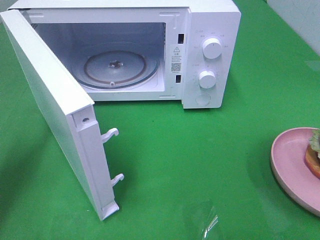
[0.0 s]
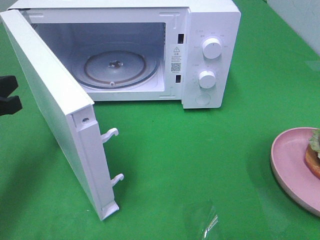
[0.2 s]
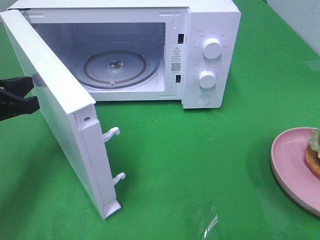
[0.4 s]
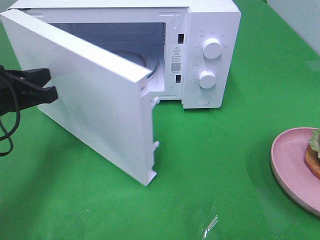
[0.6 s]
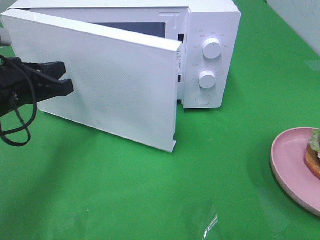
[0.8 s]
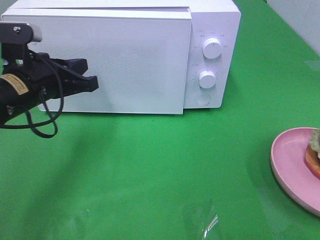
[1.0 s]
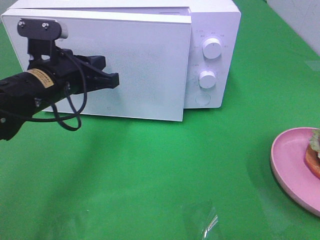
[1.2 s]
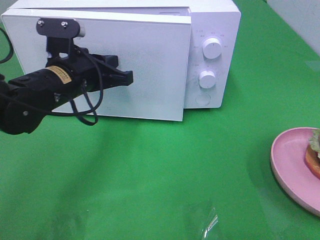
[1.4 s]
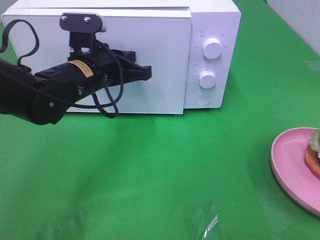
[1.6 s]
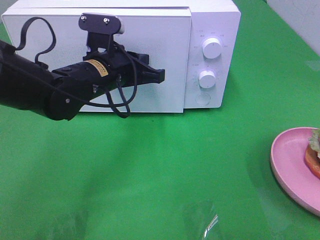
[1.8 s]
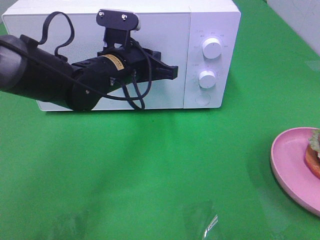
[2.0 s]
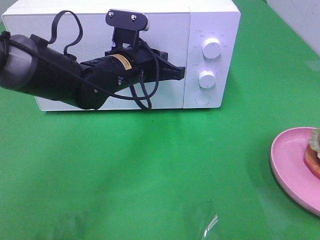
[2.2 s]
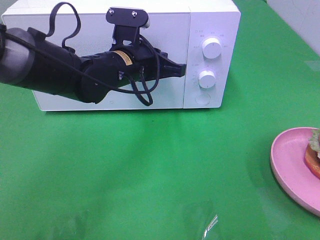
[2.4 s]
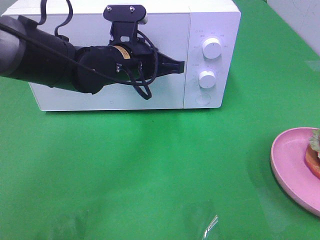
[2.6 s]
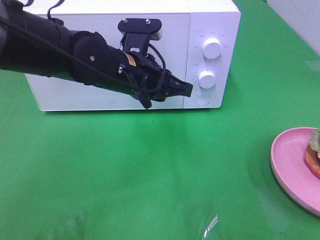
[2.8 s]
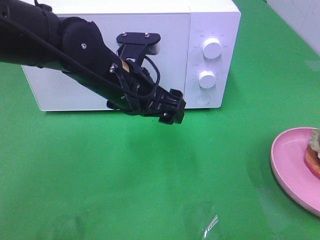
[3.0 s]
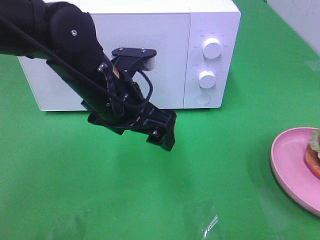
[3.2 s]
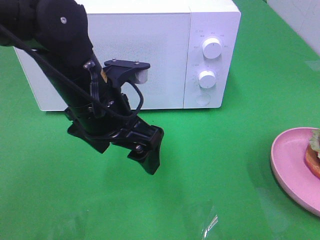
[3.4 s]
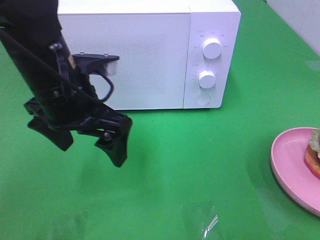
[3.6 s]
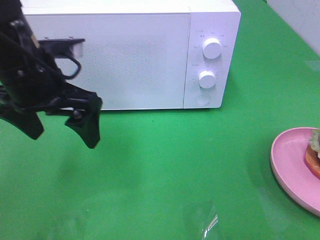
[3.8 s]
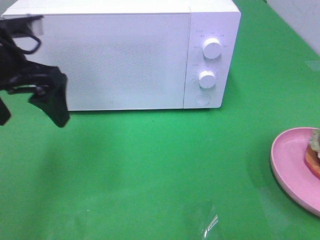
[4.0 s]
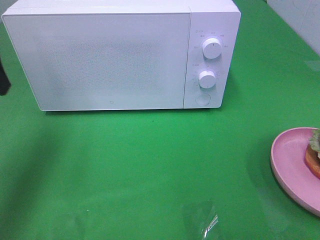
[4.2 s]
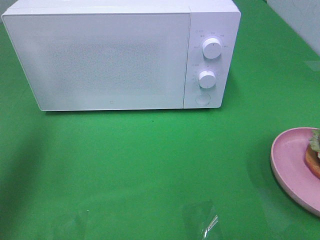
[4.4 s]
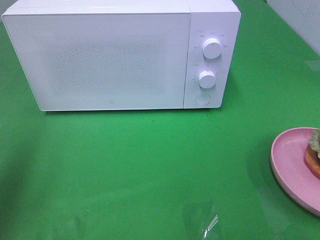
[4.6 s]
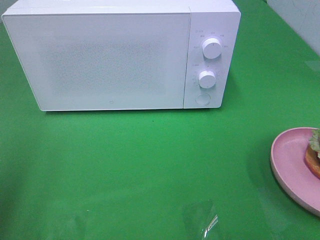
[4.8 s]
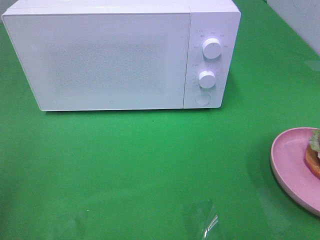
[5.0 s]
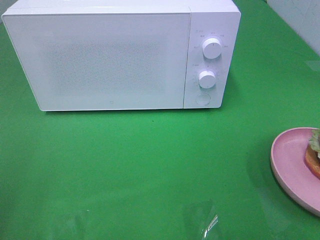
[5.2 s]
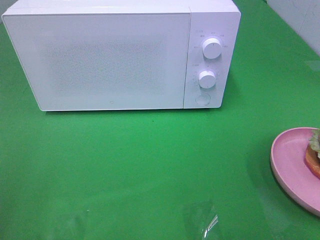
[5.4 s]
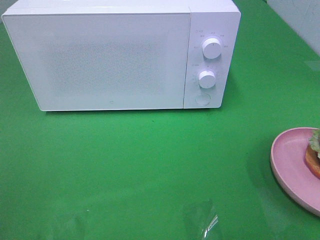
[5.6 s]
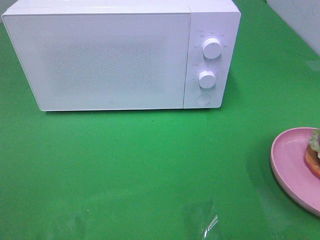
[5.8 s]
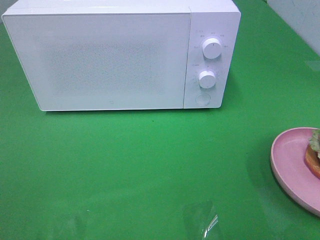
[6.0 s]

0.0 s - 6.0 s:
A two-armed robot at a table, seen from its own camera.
Task of the whole recording: Heat the burger.
Step, 0.0 s - 2.8 s: Left hand: close the microwave door.
0.0 s - 1.6 s: The left gripper shifts approximately 20 cm to the right and forward.
1.6 s - 3.0 s: The left gripper moves to the right, about 5 cm, and opens up.
3.0 s - 4.4 s: The left gripper heads to the left and upward, covering some 30 cm.
4.4 s - 6.0 s: The left gripper shifts approximately 25 cm backward.

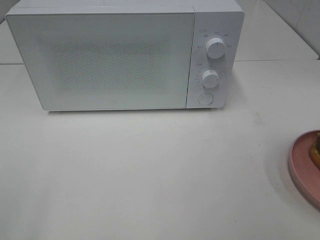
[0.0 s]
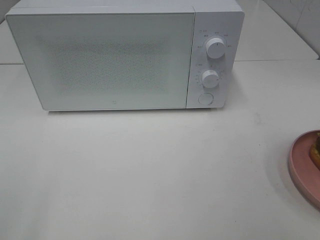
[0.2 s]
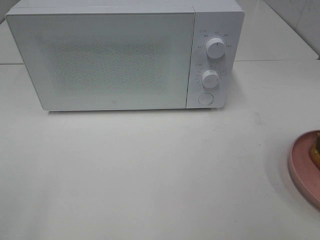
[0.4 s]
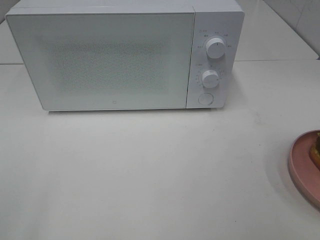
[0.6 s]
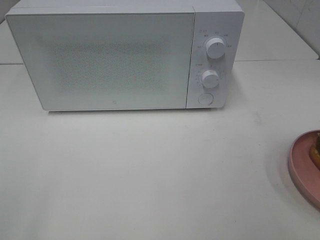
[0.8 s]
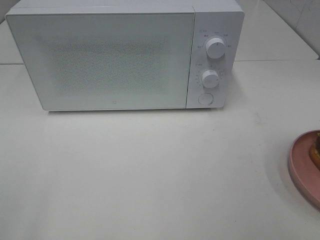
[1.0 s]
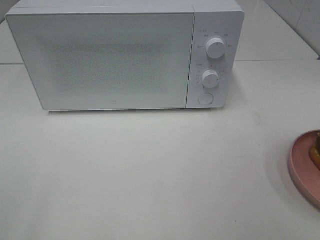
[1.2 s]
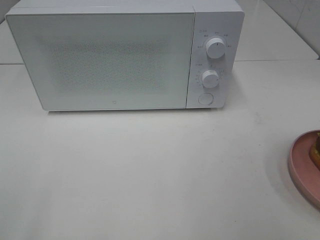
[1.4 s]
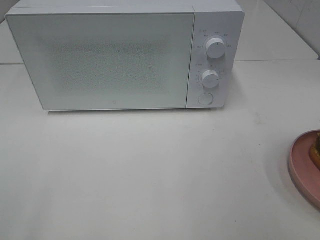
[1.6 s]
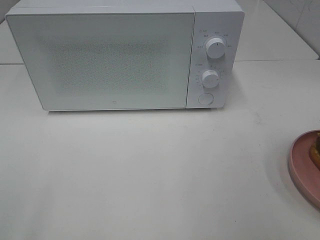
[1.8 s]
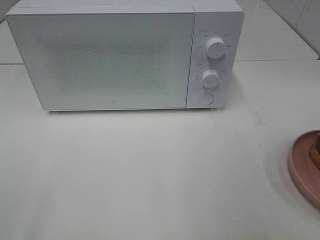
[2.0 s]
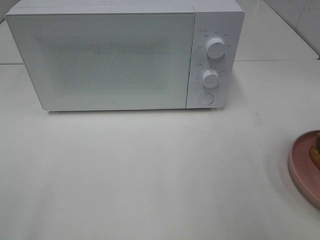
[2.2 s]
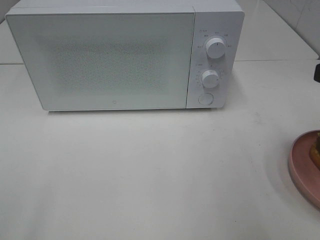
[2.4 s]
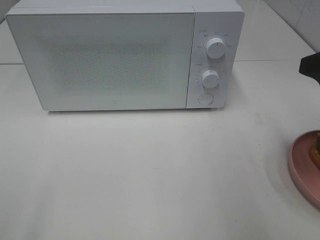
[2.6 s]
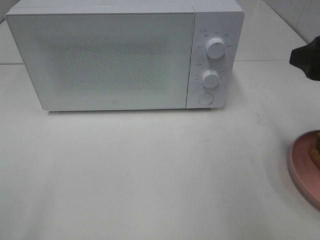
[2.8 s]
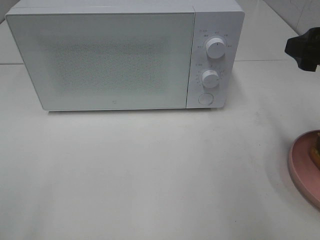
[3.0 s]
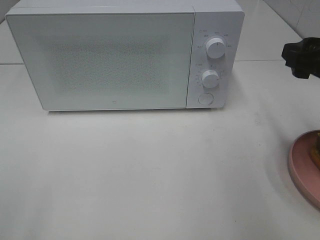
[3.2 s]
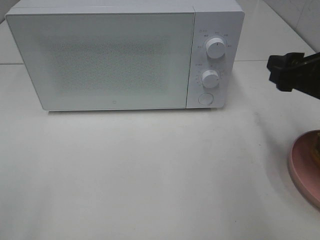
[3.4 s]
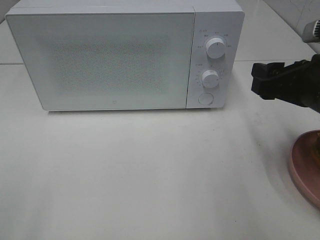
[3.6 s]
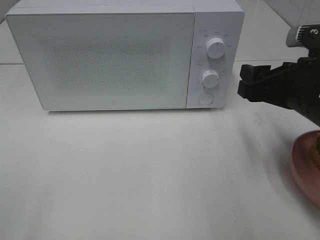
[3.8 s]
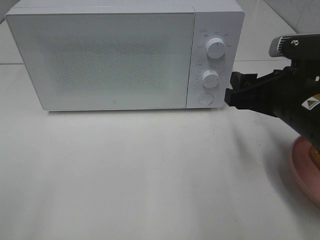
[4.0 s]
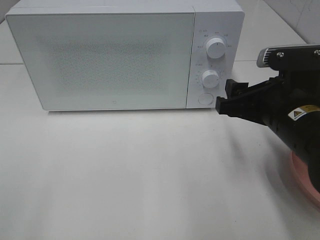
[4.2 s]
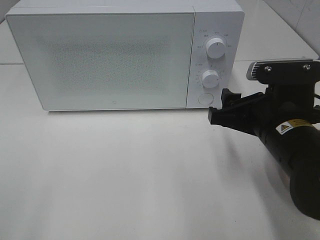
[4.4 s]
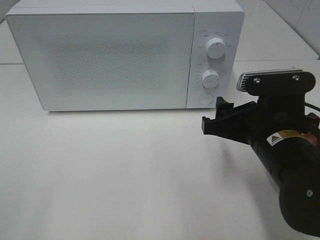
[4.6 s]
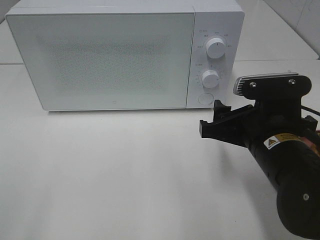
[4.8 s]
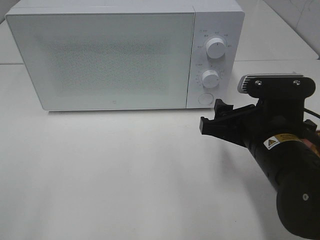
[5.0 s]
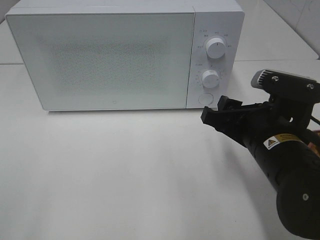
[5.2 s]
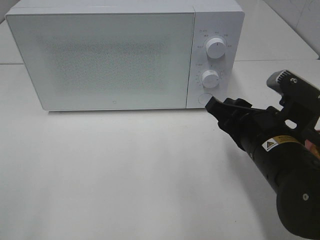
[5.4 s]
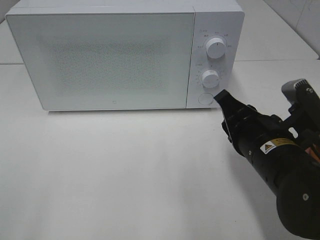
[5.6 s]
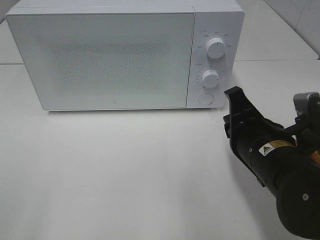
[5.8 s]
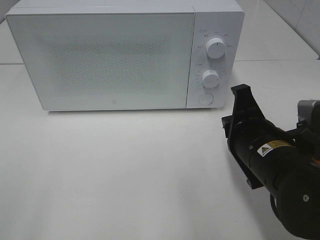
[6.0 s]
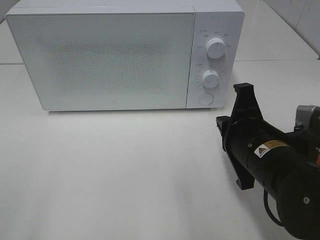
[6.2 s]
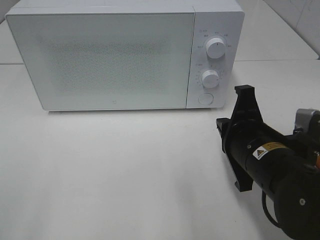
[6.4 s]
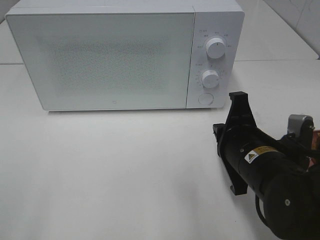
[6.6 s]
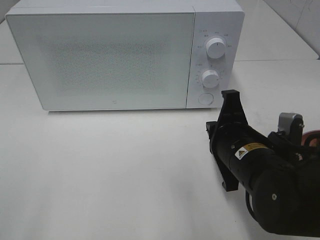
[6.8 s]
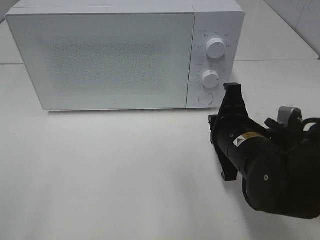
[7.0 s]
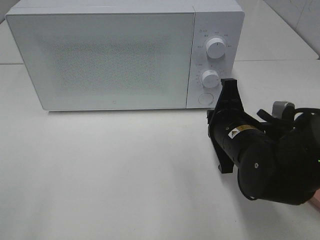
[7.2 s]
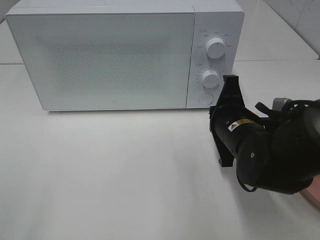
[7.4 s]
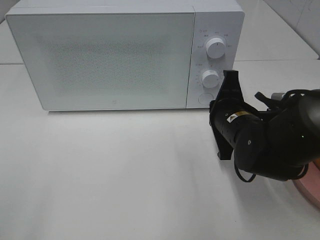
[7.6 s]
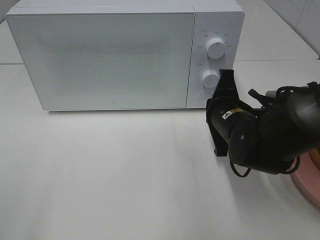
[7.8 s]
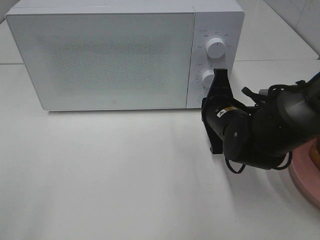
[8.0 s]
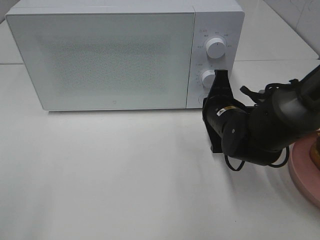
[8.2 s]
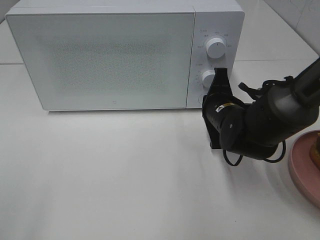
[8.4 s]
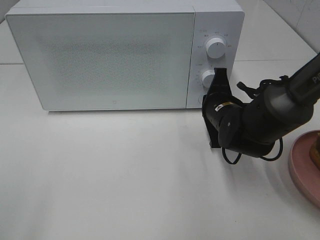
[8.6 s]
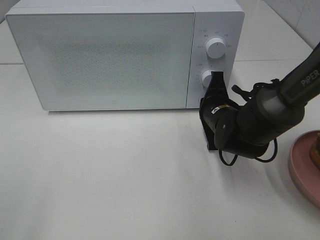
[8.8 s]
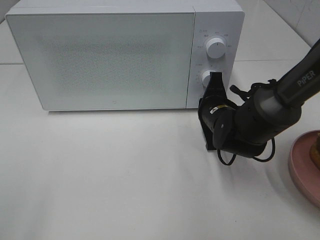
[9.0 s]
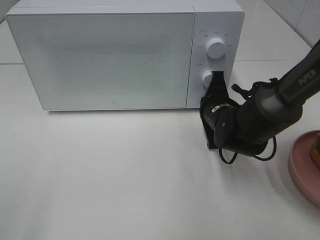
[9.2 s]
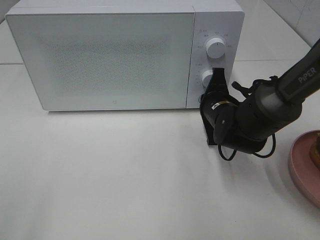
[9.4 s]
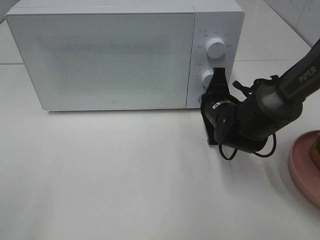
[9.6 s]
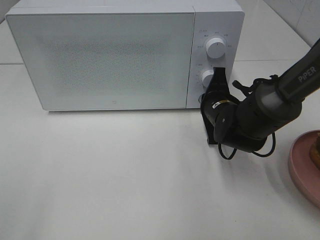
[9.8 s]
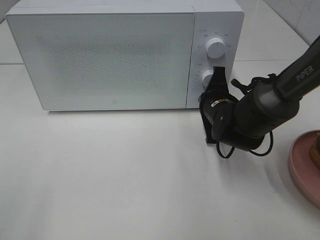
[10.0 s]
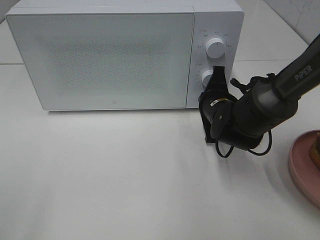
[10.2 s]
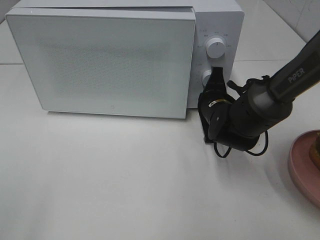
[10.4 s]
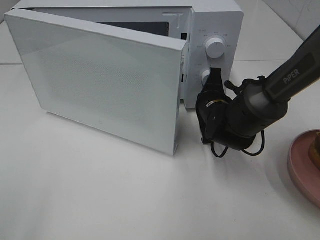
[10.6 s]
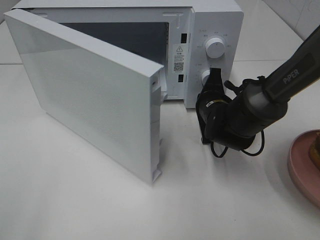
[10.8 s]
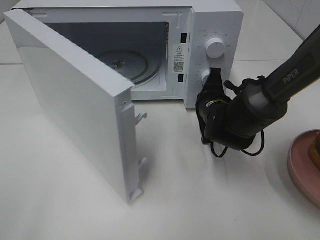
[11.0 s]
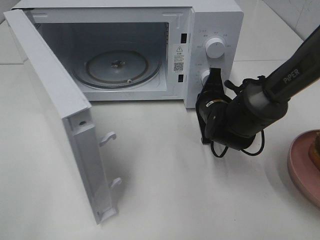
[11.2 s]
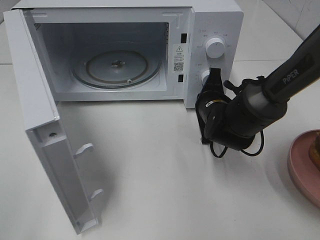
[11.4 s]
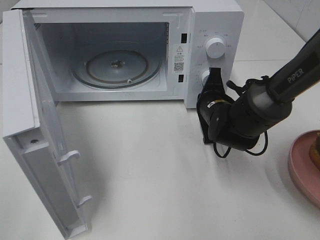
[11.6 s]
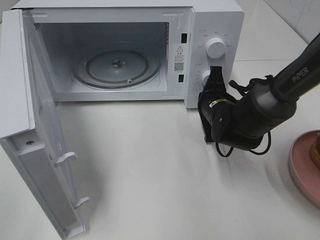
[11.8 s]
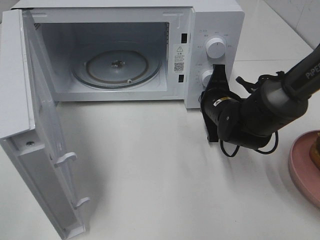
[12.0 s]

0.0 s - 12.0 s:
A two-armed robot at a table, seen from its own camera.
Task of the whole recording: Heat the burger.
1.6 s - 3.0 s: The right gripper shifts roughly 15 cm forward.
3.0 s - 4.4 s: The right gripper goes approximately 15 cm to the left and downward.
4.4 s - 6.0 s: The right gripper closes up.
6.0 s - 7.6 s: The right gripper is displaced forward by roughly 10 cm.
7.6 s - 9.0 s: The right gripper heads forward, covering approximately 5 cm.
9.0 s - 10.4 s: The grippers move only a little.

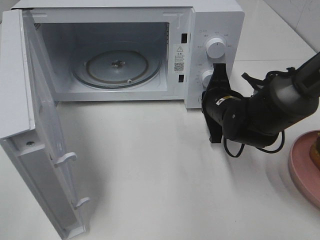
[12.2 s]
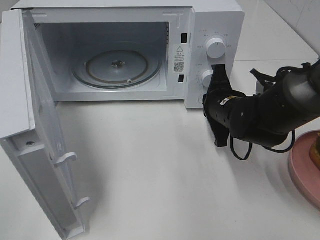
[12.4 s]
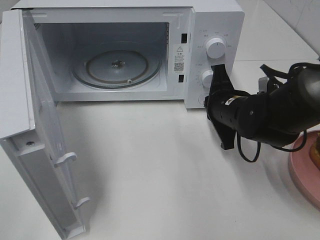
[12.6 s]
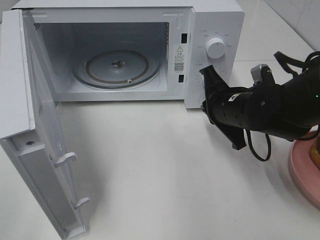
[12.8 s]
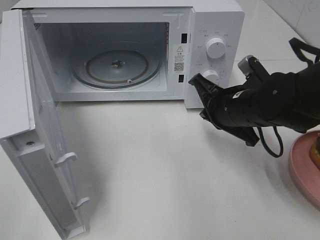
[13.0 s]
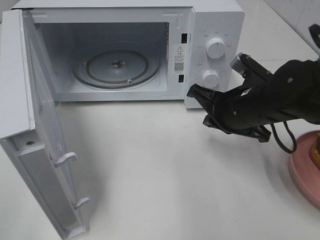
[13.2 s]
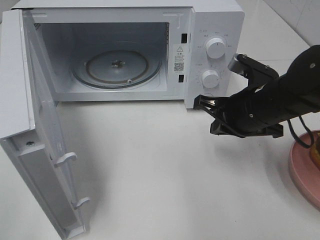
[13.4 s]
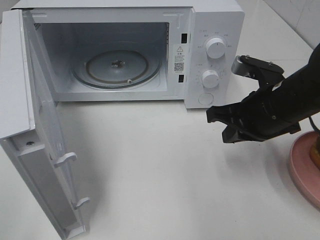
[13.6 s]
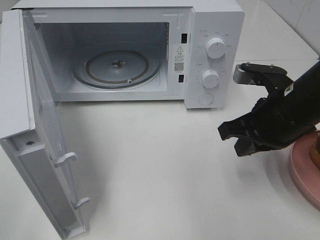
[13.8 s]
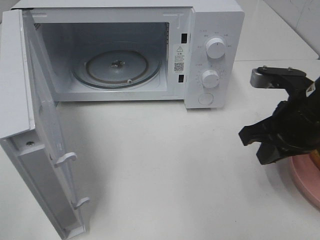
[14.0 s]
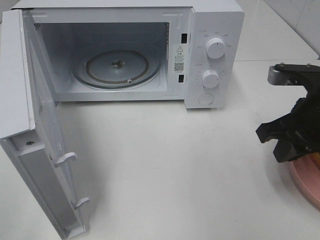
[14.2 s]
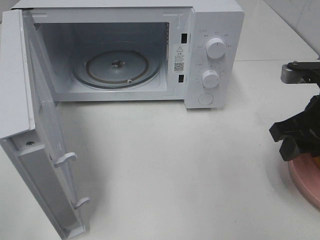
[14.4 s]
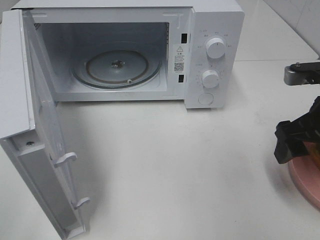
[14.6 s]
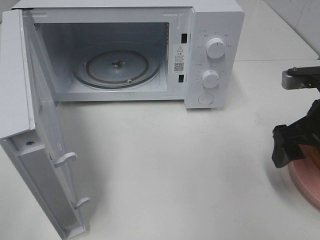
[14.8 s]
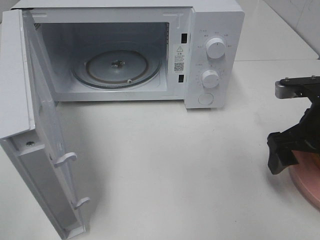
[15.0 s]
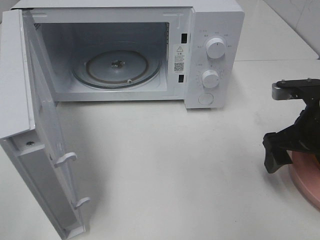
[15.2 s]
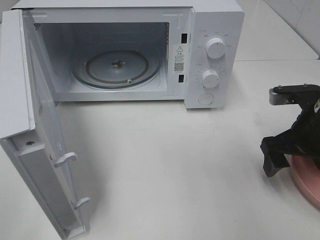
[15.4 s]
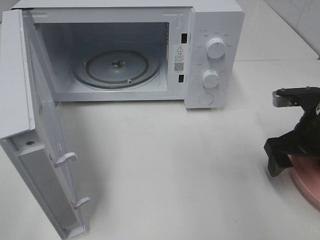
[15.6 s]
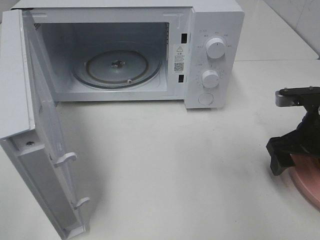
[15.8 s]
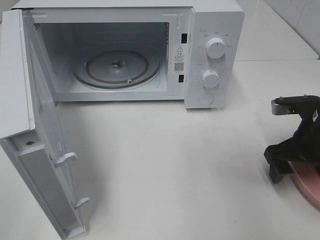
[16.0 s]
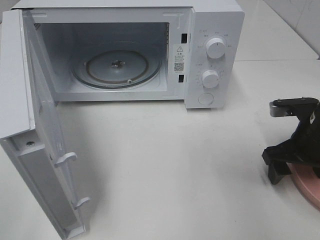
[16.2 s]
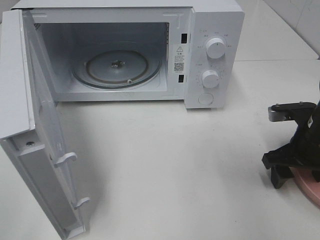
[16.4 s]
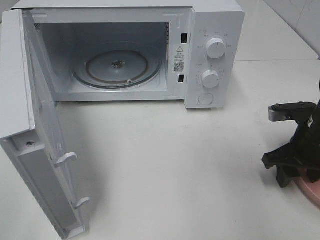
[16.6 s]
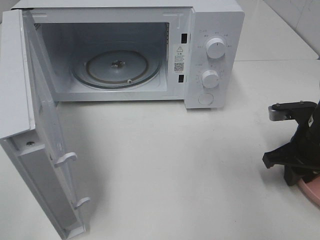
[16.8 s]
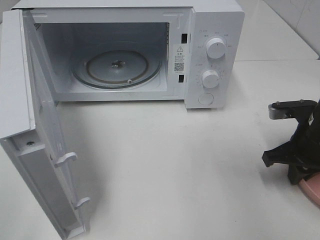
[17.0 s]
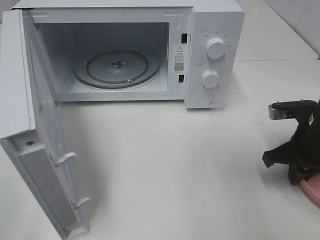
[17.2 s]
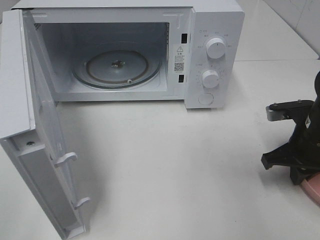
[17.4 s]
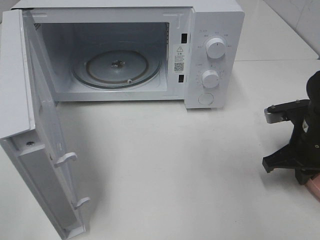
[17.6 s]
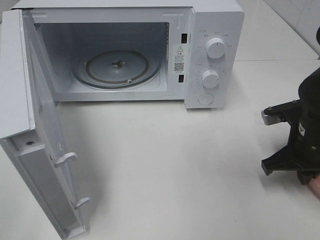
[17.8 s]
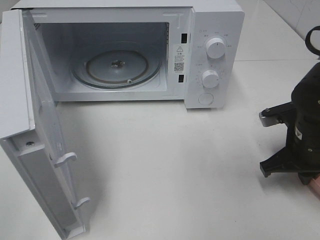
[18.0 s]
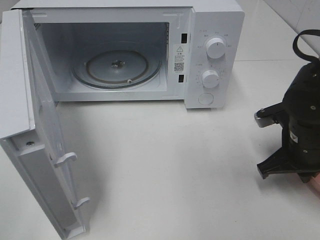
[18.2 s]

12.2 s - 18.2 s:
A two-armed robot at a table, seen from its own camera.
Task of the whole recording: Heat the burger.
Step, 12.4 s - 17.0 s: Right hand: grab the plate with the hamburger.
12.2 s - 13.8 s: The right gripper heads backward, upward and to the right, covering approximately 15 cm.
13.8 s - 15.2 s: The right gripper moves to the right, approximately 5 cm, and opens up.
15.2 s - 16.6 s: The right gripper goes approximately 5 cm downward, and closes up.
16.6 s - 18.2 s: The right gripper closes its fingers.
